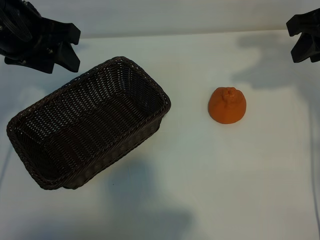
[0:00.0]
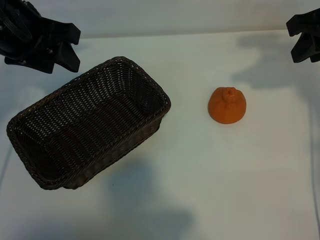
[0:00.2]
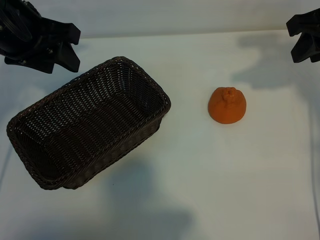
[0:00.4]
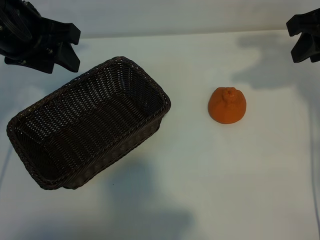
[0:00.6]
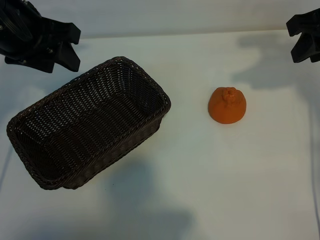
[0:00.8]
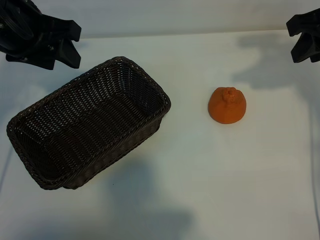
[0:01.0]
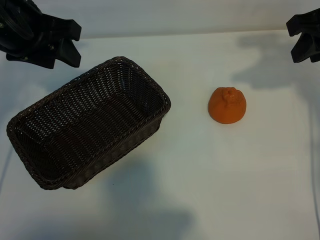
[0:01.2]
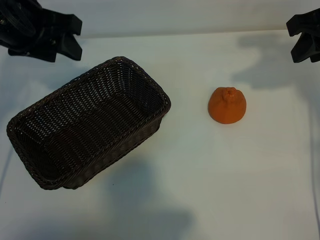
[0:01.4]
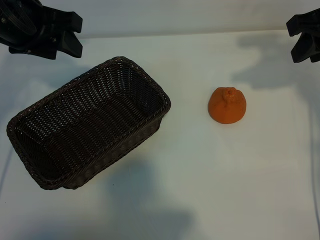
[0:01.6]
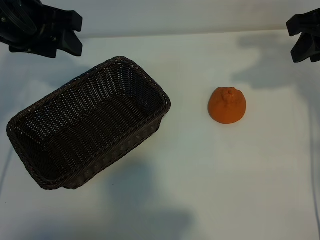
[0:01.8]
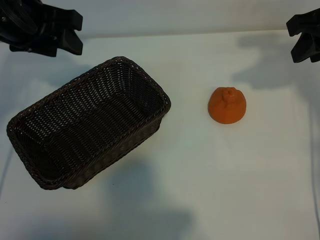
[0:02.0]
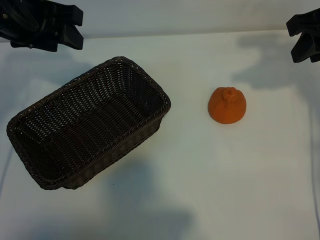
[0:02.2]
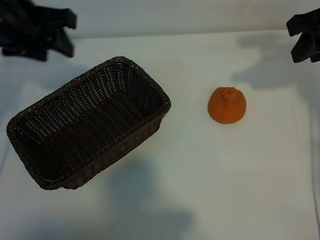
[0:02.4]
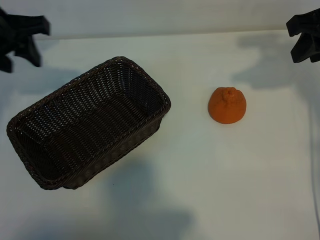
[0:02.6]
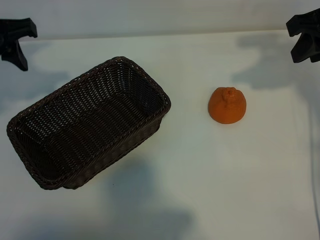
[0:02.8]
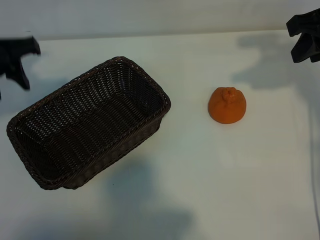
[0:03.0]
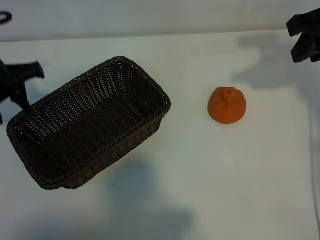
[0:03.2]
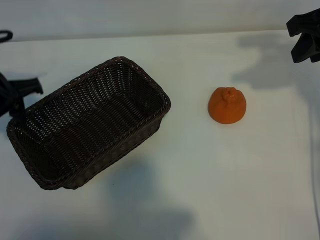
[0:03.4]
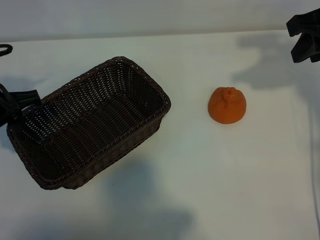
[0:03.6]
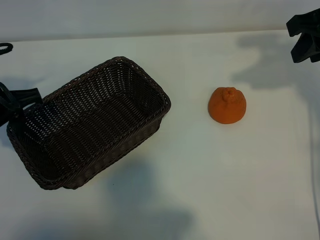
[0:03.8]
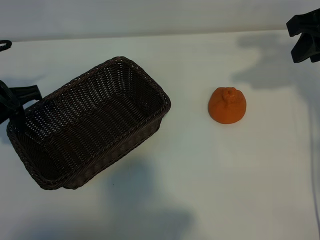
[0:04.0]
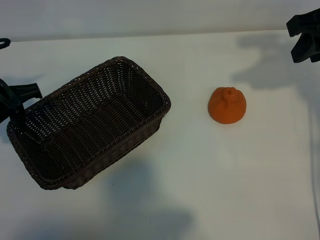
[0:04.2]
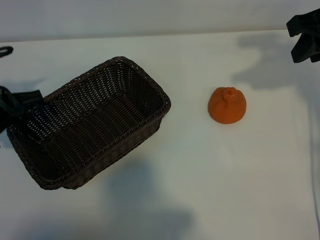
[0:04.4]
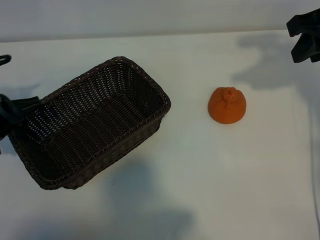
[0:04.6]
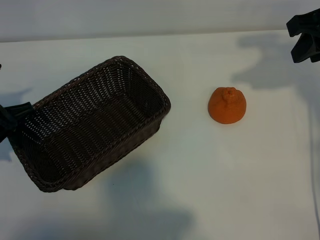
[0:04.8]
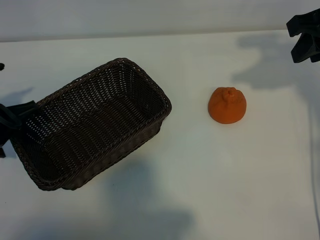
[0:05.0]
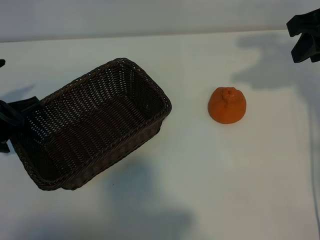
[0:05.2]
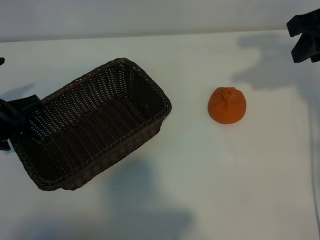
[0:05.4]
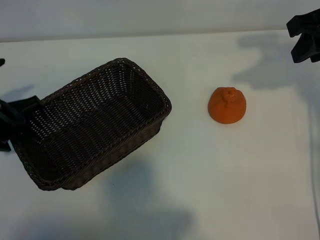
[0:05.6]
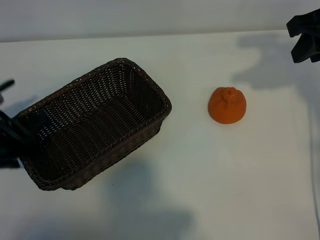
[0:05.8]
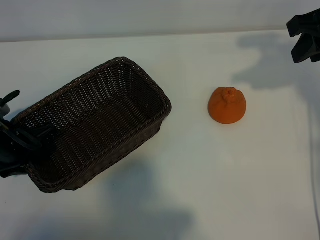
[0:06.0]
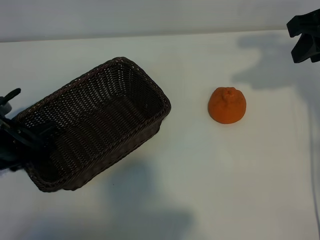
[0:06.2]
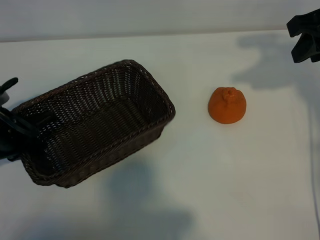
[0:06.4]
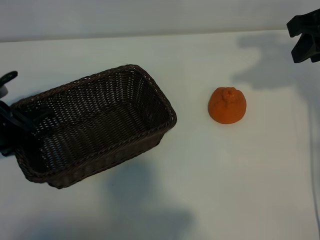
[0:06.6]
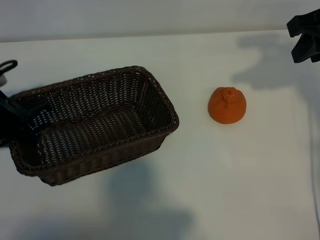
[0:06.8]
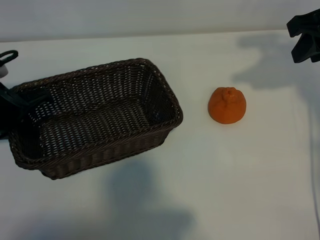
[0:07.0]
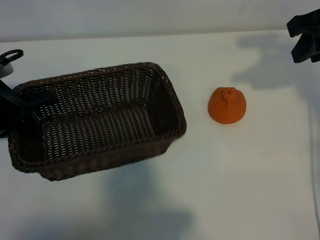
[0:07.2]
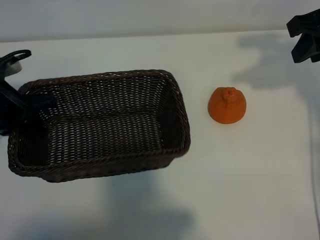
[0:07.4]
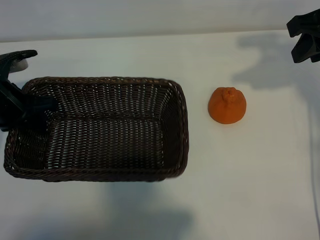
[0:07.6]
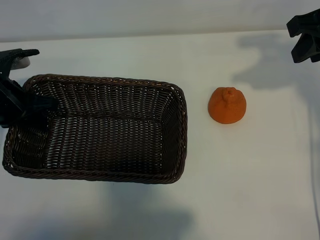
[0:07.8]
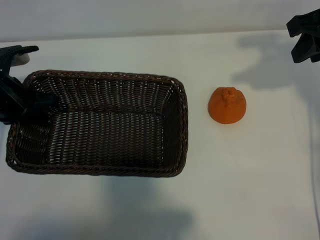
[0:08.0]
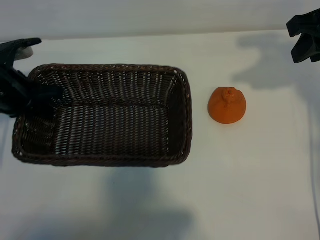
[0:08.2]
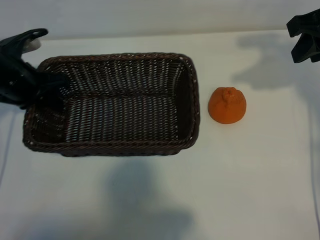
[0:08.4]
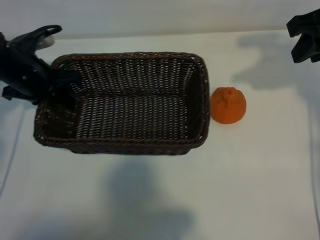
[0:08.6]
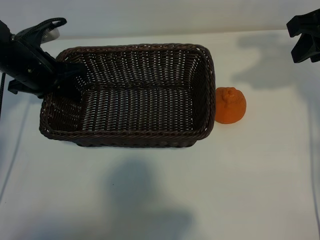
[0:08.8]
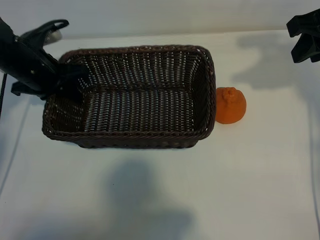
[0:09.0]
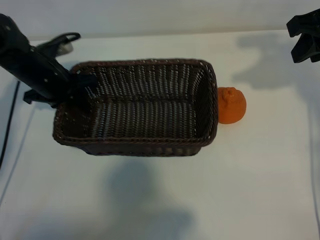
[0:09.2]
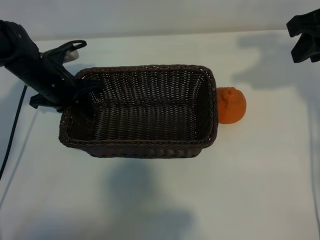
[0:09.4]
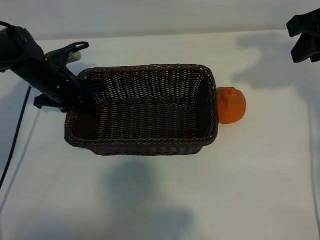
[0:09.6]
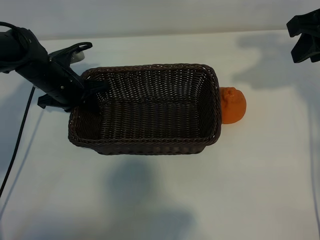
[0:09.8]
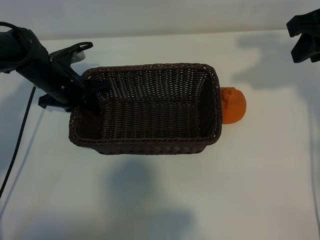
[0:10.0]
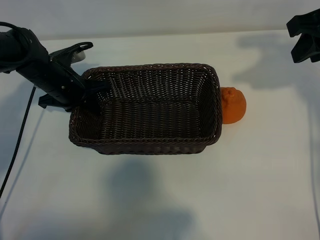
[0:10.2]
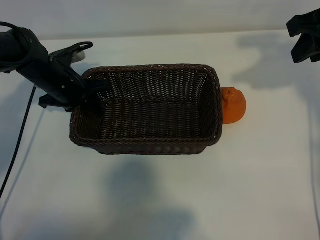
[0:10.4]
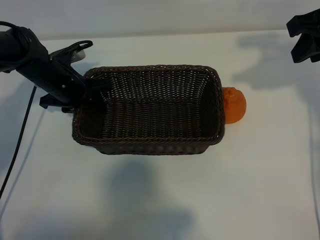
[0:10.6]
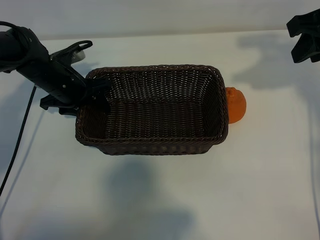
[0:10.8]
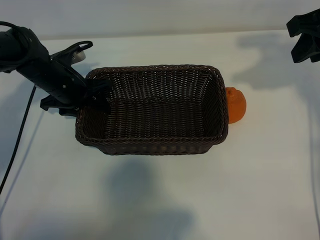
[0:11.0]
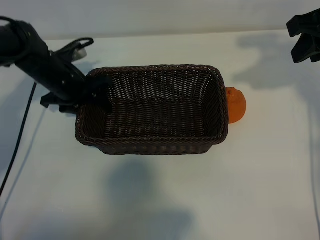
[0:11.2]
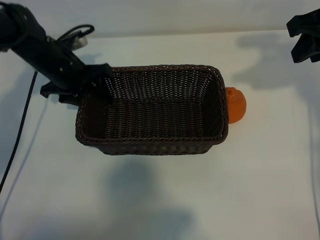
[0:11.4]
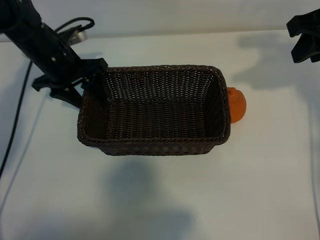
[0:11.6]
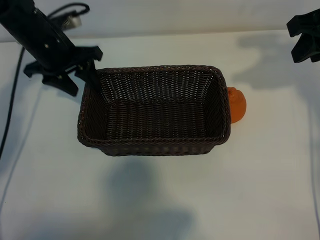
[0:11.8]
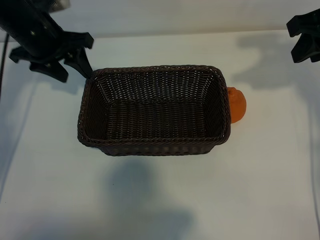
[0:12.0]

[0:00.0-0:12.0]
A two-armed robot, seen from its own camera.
Task of the whole recording: pick up the orange and put it into the basket.
Step, 0:00.8 to 0:06.2: Grasp the basket with left gripper.
Step, 0:06.4 to 0:10.6: Place the basket in the center of view with left gripper.

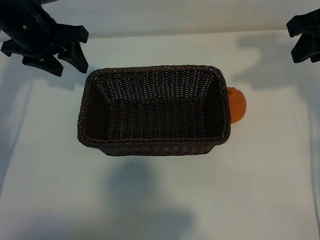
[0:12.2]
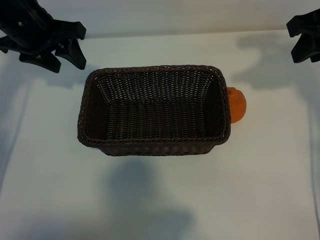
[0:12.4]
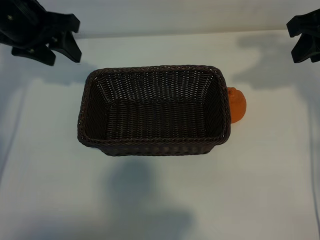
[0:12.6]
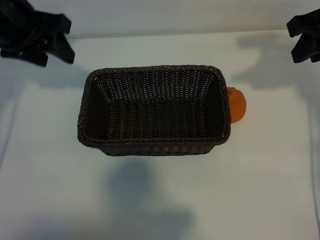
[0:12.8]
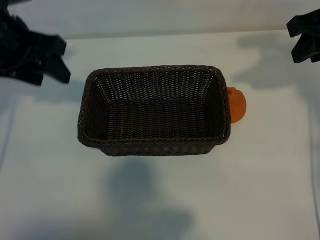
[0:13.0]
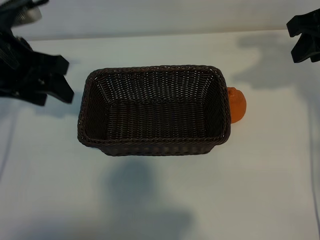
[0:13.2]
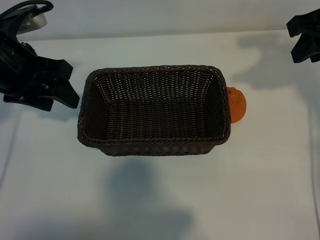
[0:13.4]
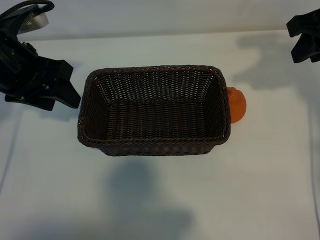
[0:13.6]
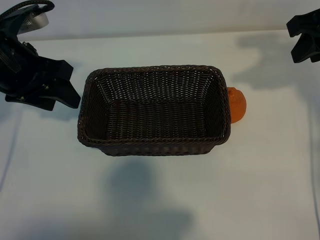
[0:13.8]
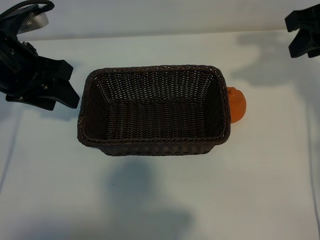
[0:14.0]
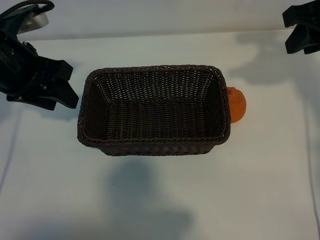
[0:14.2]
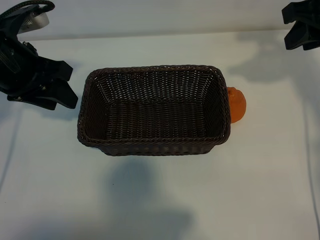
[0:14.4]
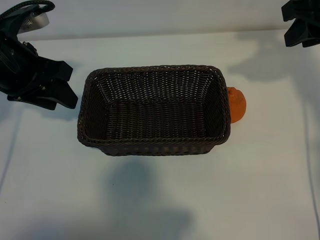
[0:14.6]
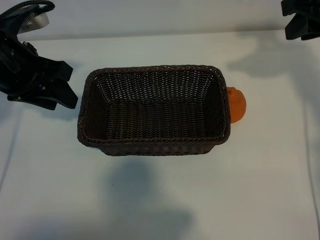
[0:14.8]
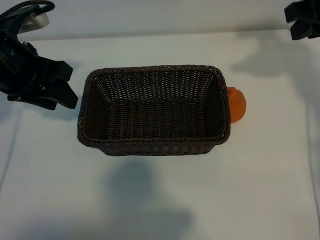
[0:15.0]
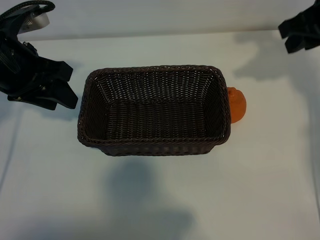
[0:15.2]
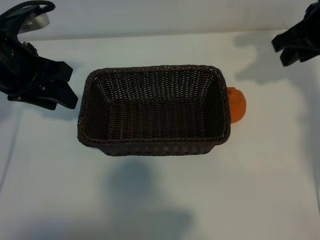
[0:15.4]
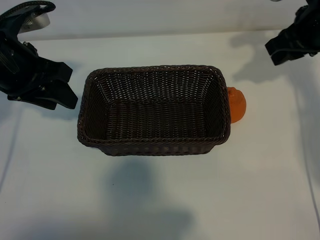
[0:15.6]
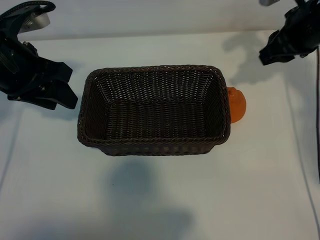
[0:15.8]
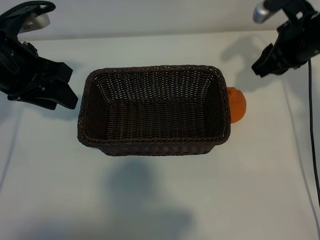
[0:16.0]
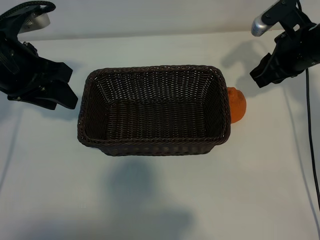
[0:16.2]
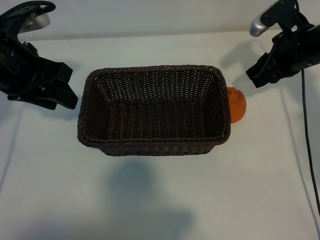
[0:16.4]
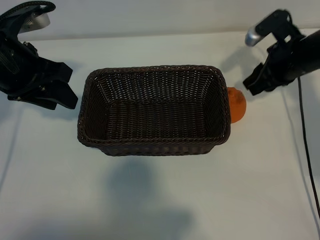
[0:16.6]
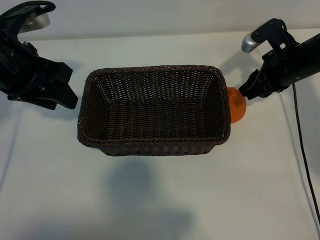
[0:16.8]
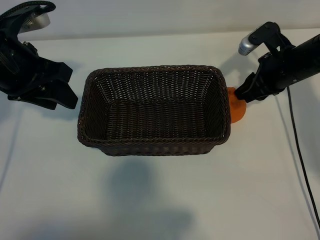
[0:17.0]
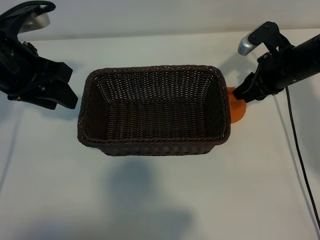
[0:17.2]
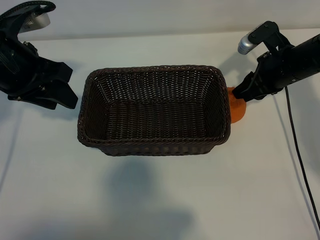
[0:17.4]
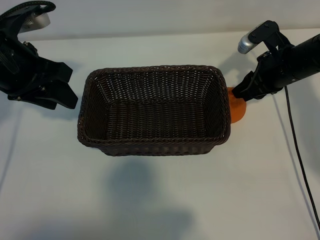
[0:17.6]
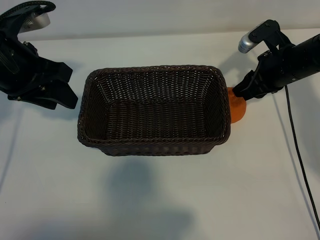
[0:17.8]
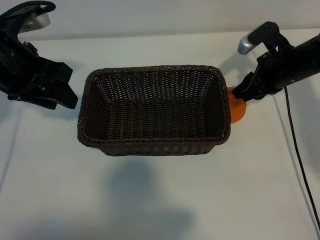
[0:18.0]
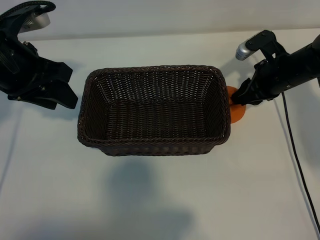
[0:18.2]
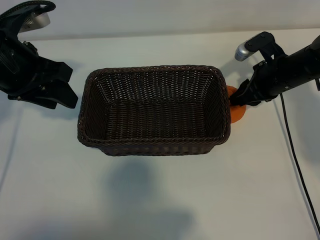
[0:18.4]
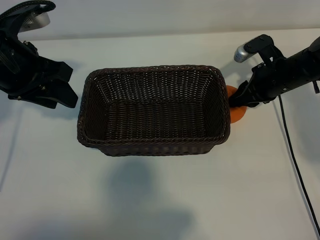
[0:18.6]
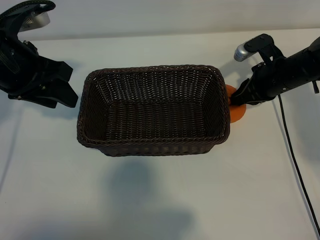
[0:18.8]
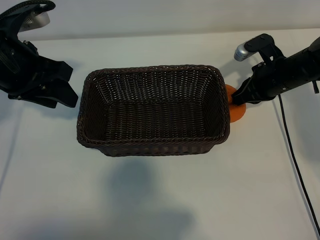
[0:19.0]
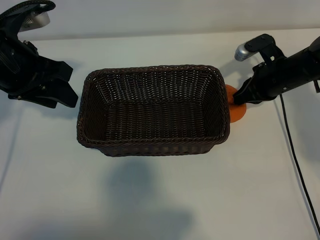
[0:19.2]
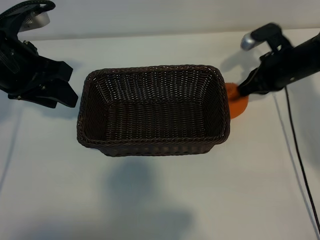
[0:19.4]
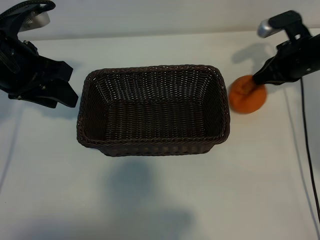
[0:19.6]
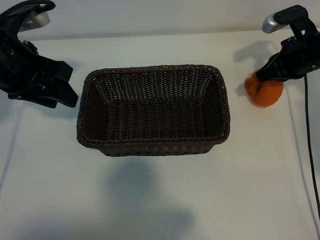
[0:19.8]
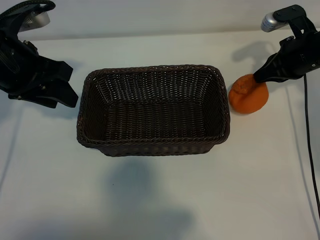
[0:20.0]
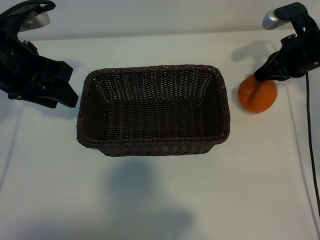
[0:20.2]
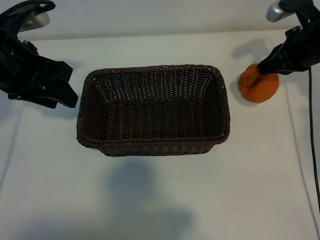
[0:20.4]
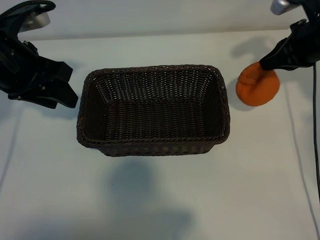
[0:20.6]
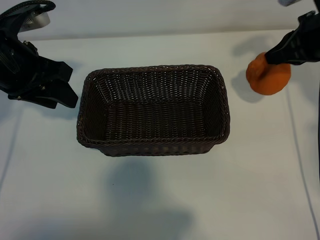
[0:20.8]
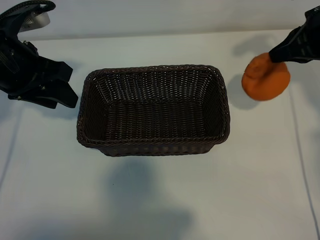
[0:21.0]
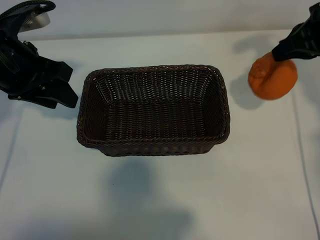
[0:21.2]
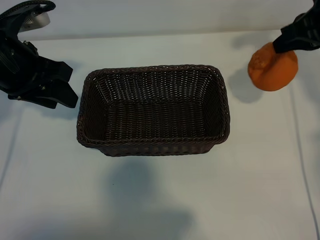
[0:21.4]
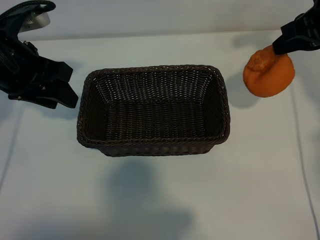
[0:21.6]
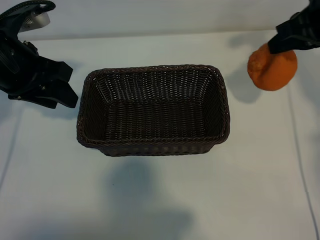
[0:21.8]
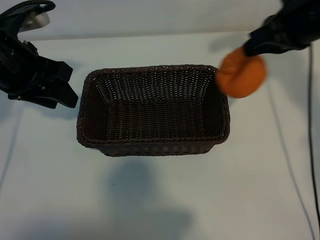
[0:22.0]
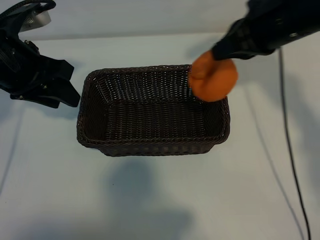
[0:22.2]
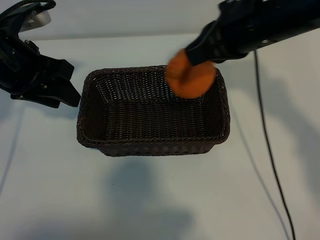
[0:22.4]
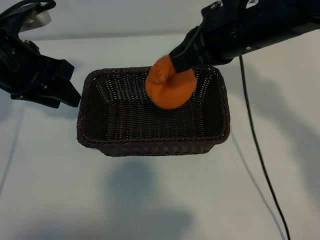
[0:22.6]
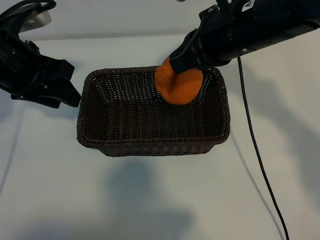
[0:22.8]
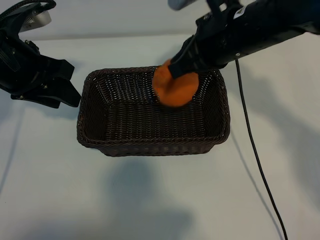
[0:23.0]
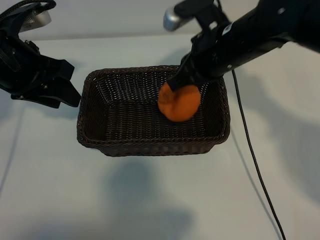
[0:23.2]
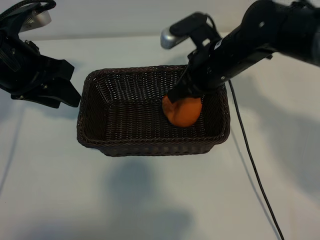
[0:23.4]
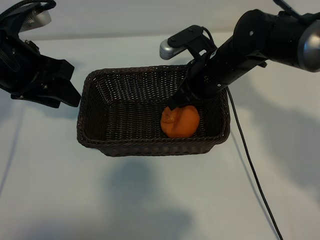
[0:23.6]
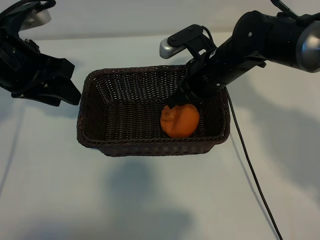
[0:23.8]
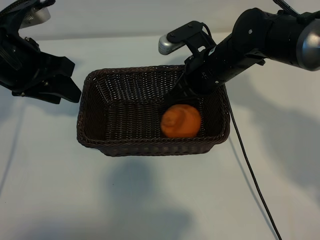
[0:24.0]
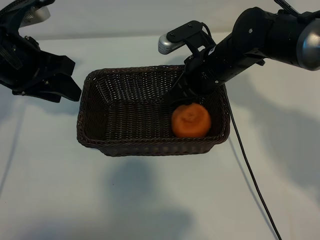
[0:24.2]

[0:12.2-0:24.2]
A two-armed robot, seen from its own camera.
Task of the whole recording: pick up the orange and put it into the basket.
Step, 0:12.2 to 0:18.8: Grasp the orange with right gripper.
Step, 0:19.2 to 0:24.0: Place the orange in the basket with right gripper.
